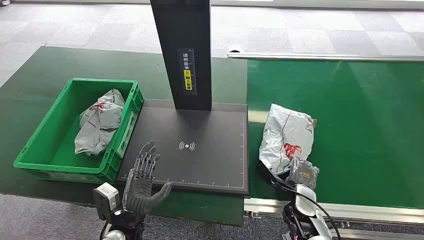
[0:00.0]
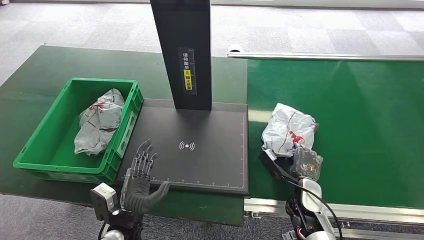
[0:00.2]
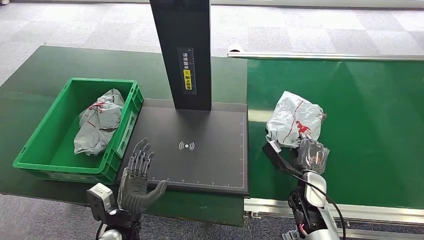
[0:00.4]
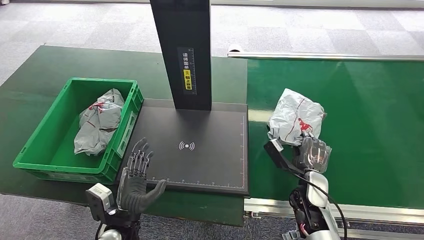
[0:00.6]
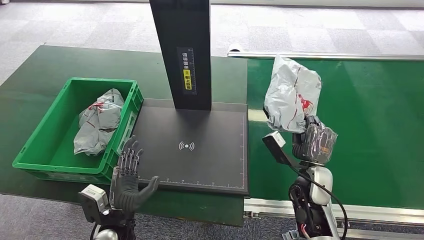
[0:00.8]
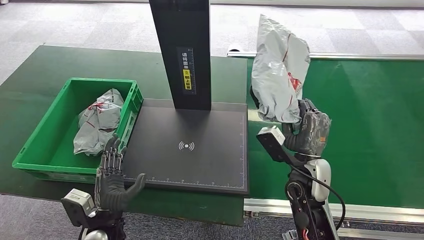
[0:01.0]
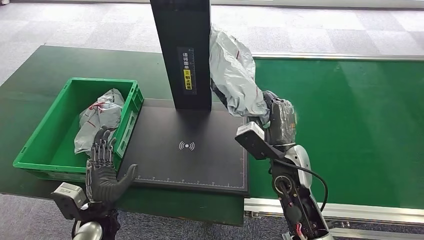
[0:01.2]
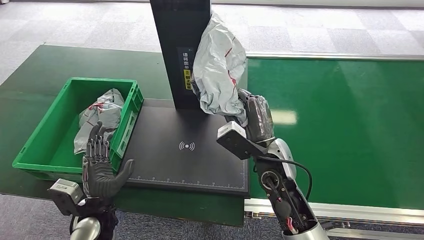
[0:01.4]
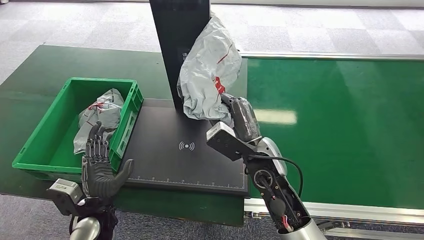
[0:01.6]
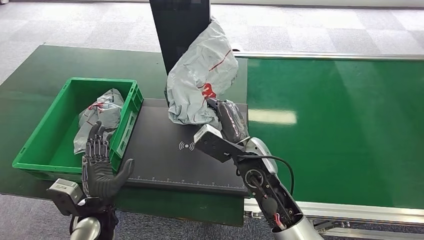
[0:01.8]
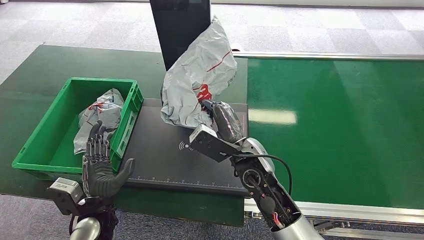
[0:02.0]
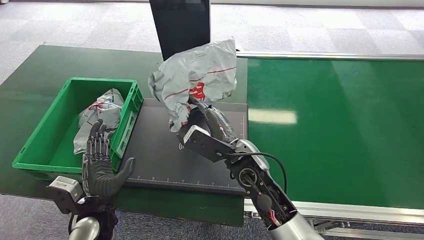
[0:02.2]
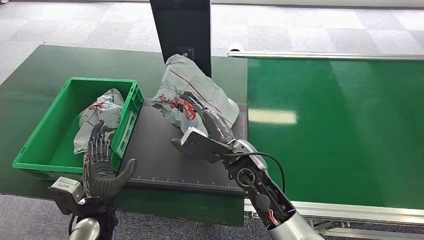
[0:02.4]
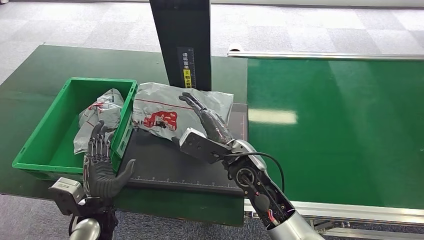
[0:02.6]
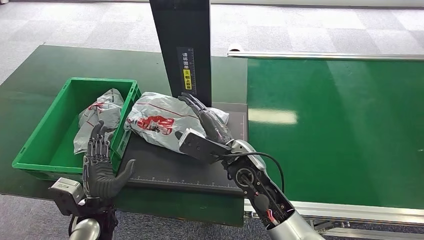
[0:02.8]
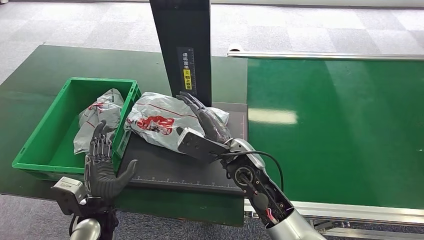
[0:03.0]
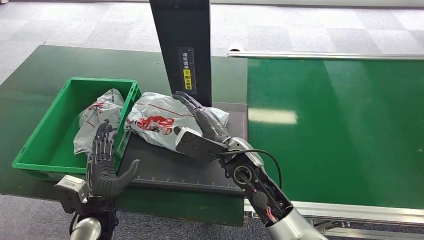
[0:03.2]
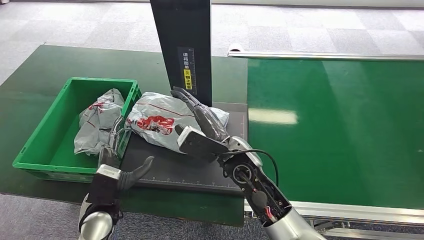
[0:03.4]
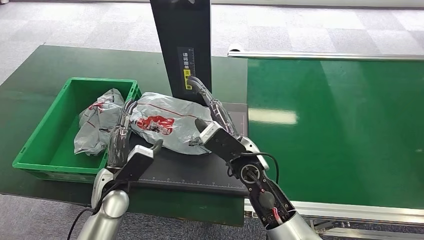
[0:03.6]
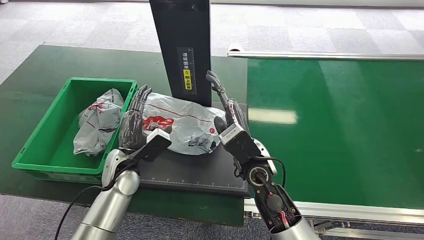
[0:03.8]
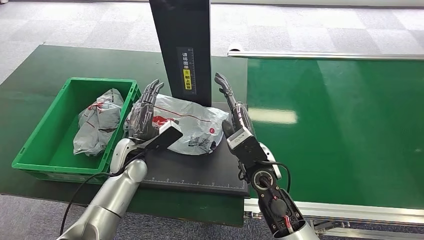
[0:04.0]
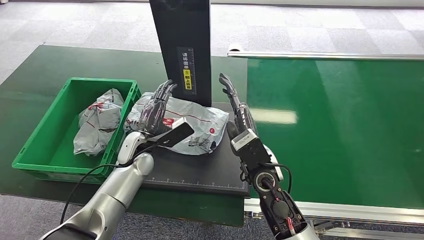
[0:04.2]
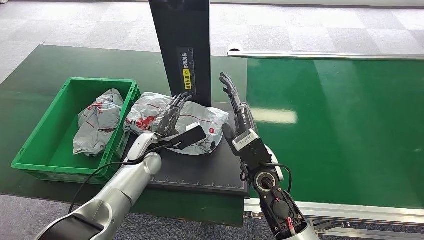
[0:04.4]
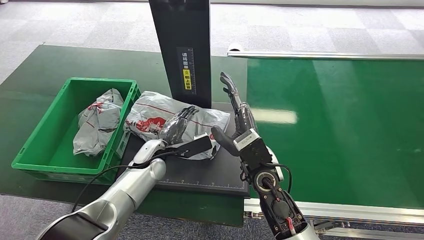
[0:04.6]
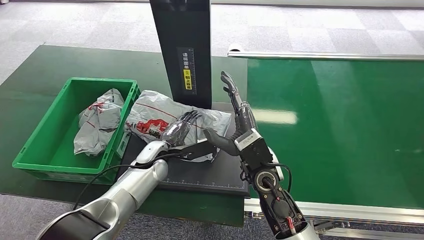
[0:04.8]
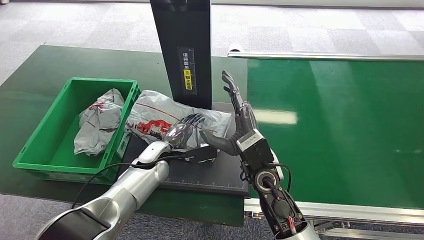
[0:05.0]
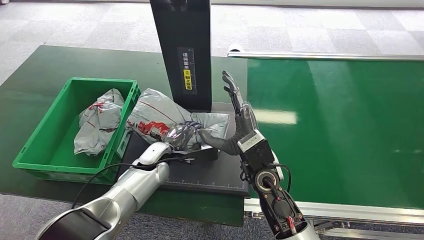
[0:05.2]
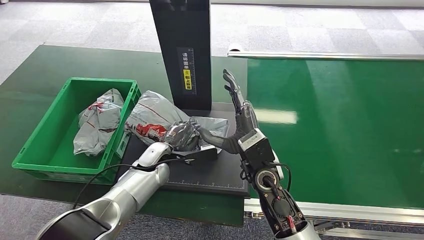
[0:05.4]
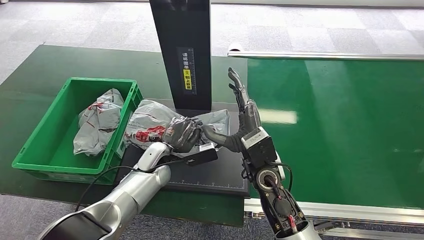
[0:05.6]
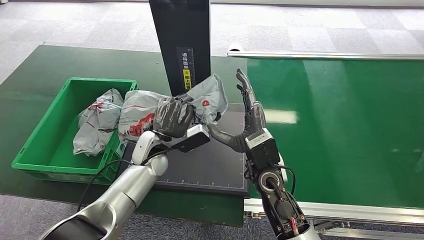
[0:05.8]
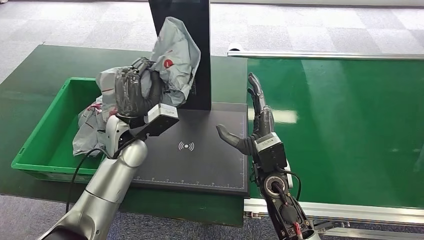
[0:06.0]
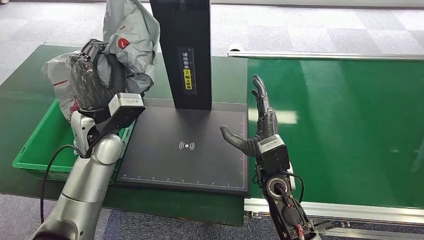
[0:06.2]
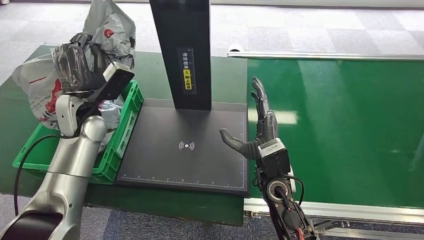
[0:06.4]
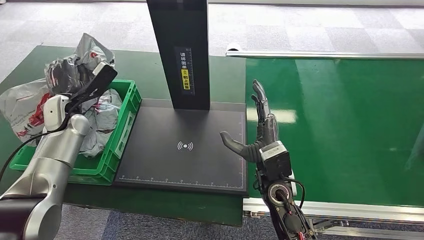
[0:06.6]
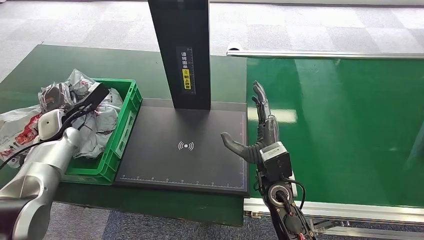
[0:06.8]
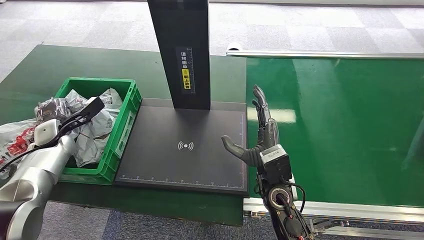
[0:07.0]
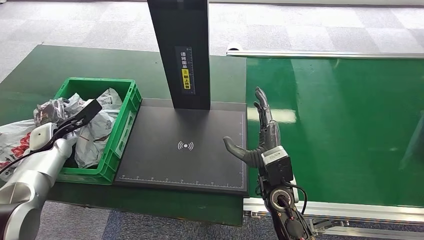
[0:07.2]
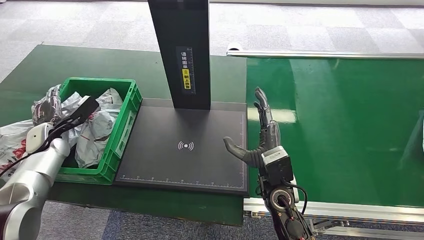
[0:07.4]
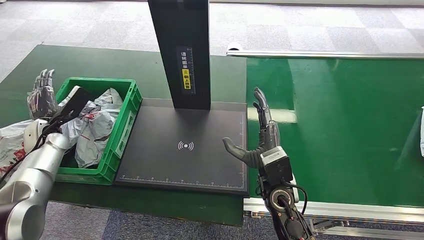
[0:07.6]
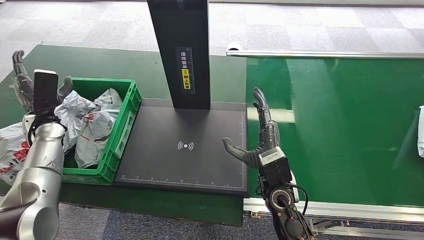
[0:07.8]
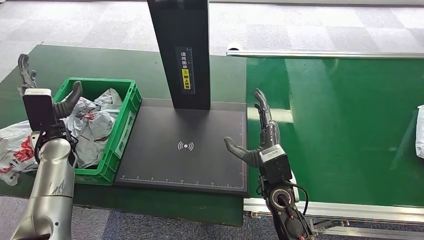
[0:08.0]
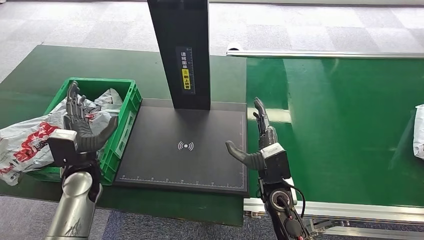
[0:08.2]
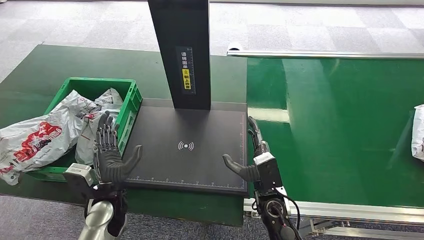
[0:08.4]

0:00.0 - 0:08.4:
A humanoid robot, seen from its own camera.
Step, 0:00.0 - 0:01.0: Pick up the package from the conveyor belt.
Step, 0:01.2 - 0:03.8: Place the package onto the inbound machine.
Step, 0:04.0 - 0:06.2: Pick up the package from the inbound machine.
Step, 0:06.4 - 0:08.4: Place the package into the parcel locker.
0:01.4 - 0:02.8: The right hand moves to the left, roughly 5 cm.
0:02.8 - 0:04.2: The left hand goes some 15 cm forward.
0:07.0 - 0:08.4: The left hand is displaced to the right and backward by roughly 25 cm. Meanwhile the right hand moves downward, approximately 10 cm.

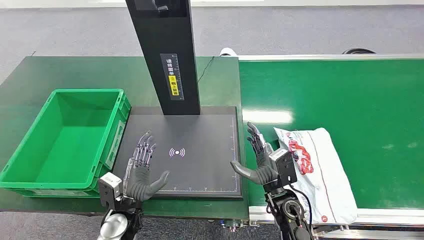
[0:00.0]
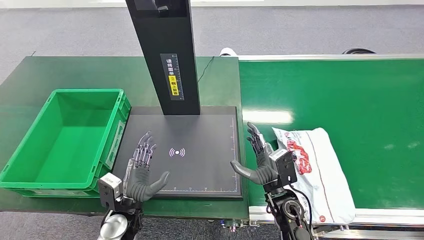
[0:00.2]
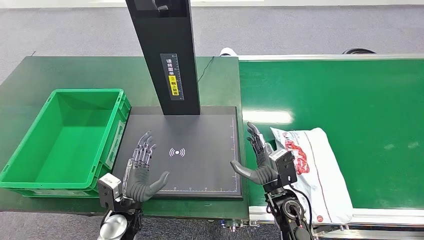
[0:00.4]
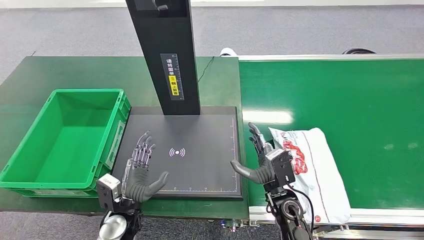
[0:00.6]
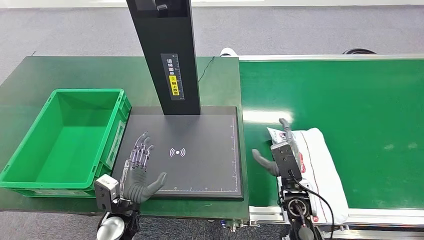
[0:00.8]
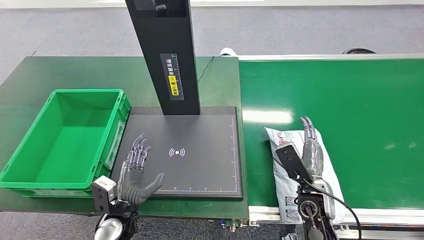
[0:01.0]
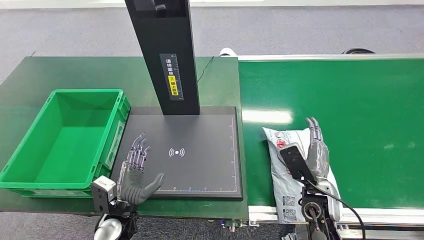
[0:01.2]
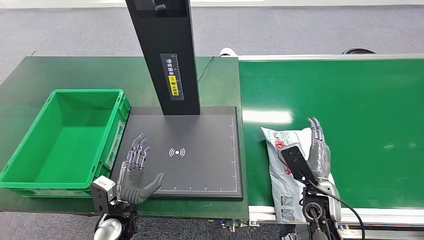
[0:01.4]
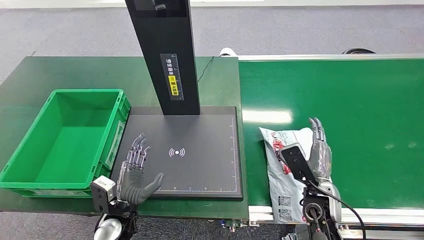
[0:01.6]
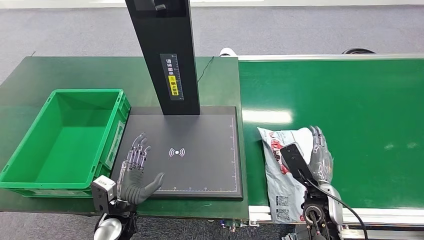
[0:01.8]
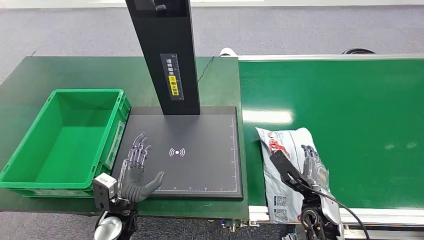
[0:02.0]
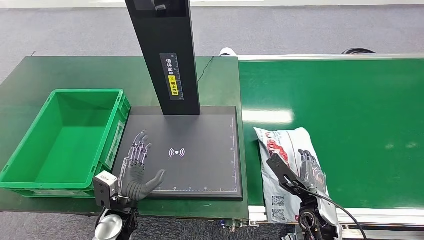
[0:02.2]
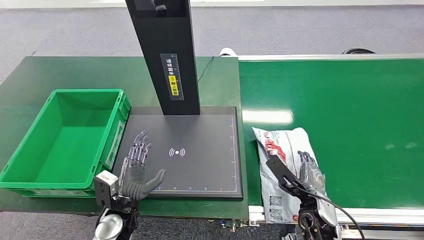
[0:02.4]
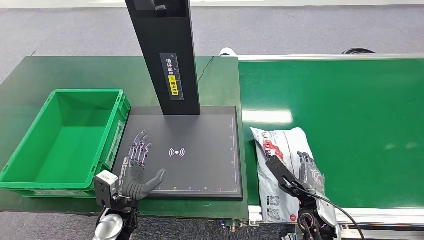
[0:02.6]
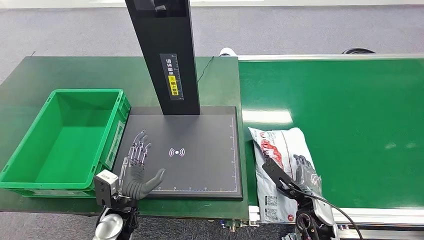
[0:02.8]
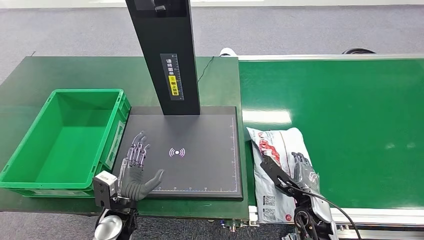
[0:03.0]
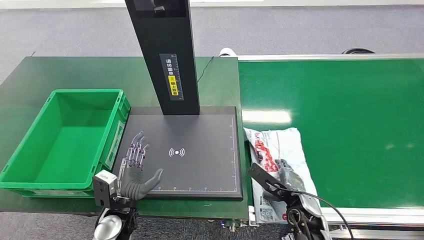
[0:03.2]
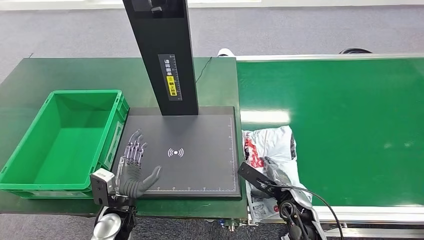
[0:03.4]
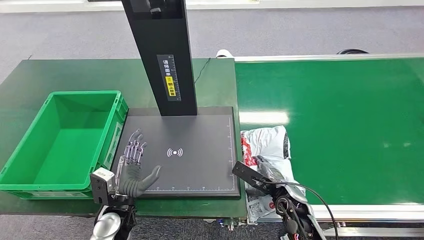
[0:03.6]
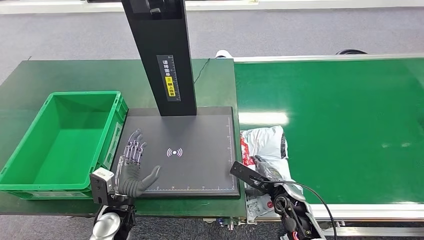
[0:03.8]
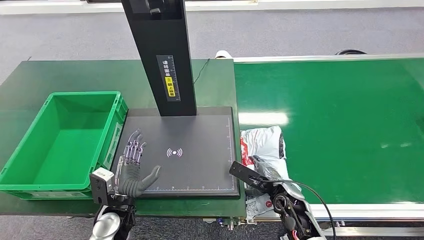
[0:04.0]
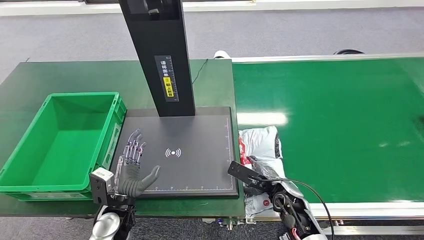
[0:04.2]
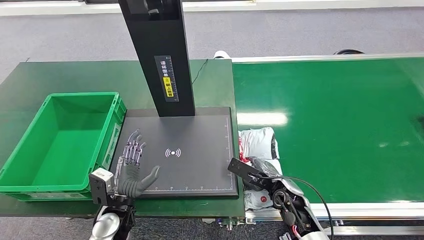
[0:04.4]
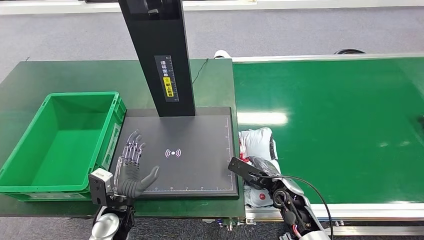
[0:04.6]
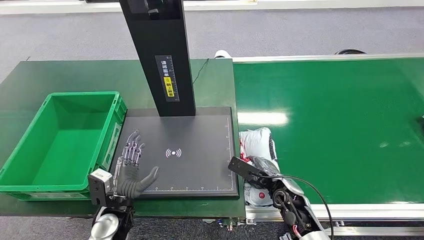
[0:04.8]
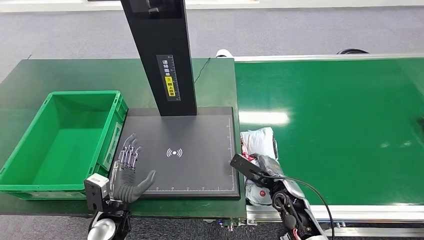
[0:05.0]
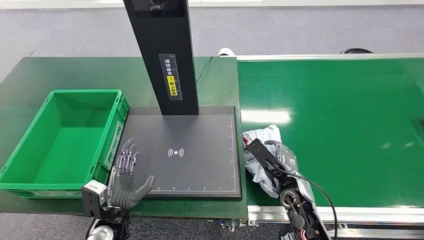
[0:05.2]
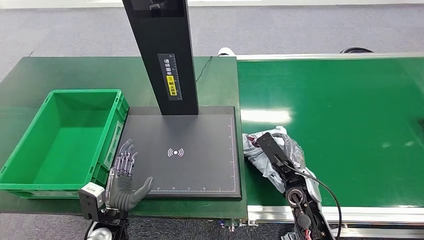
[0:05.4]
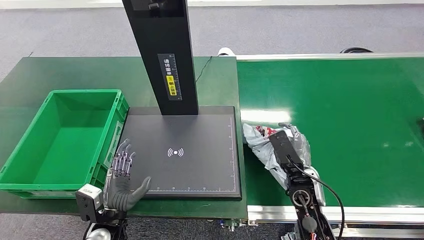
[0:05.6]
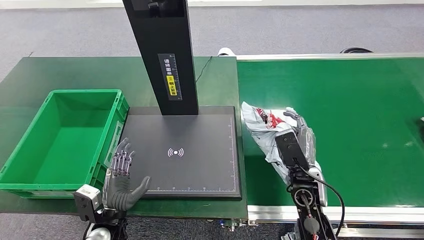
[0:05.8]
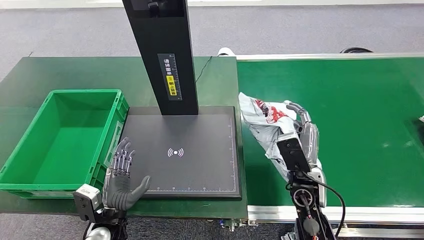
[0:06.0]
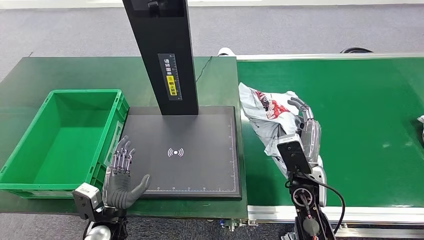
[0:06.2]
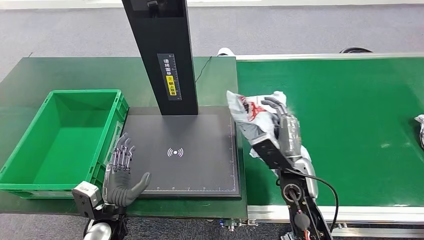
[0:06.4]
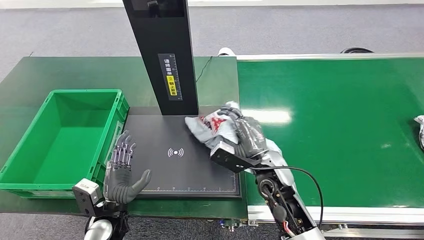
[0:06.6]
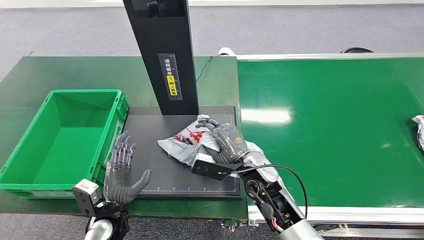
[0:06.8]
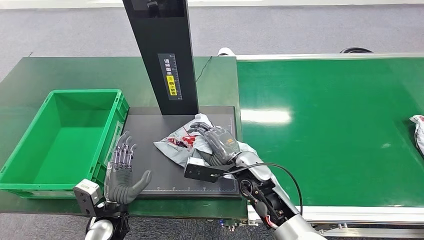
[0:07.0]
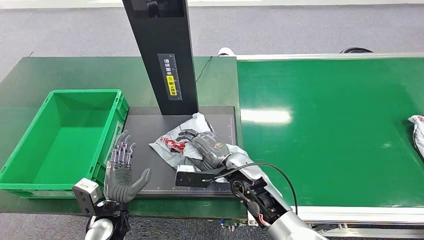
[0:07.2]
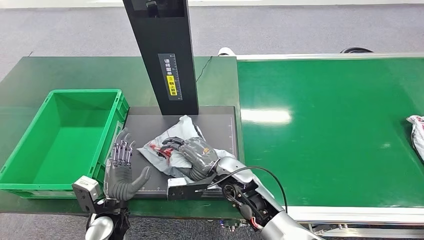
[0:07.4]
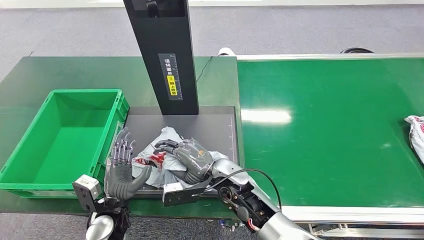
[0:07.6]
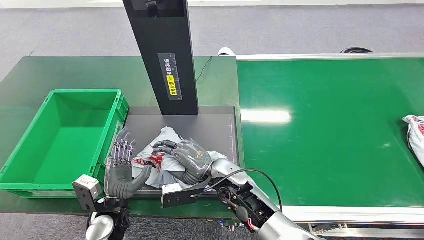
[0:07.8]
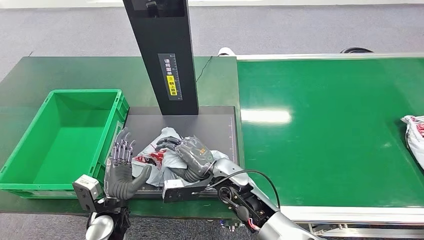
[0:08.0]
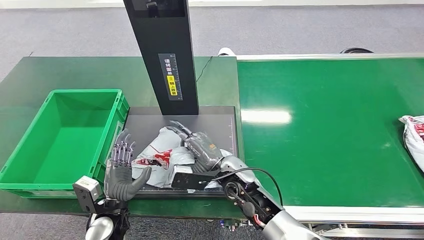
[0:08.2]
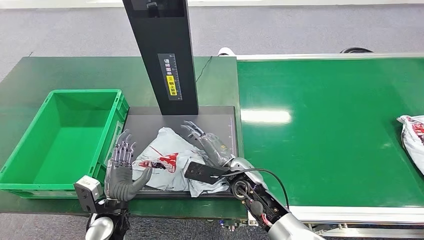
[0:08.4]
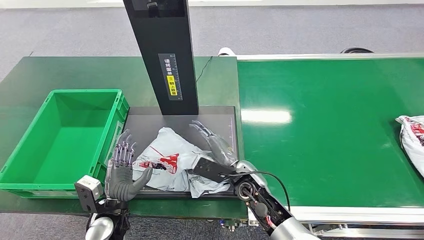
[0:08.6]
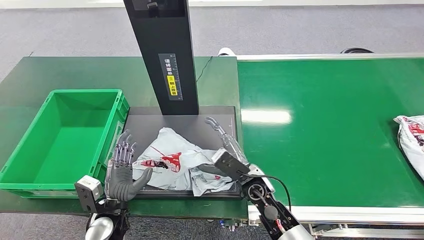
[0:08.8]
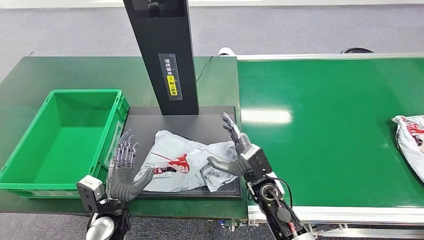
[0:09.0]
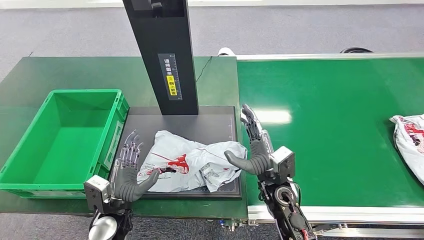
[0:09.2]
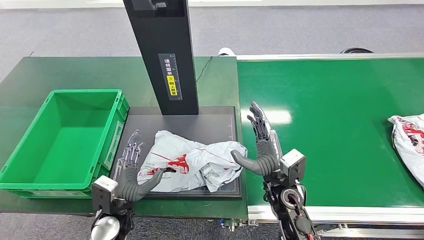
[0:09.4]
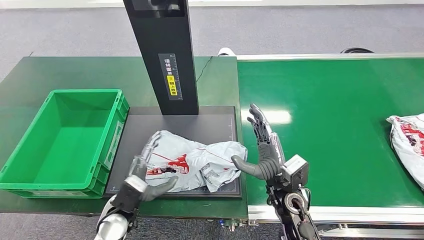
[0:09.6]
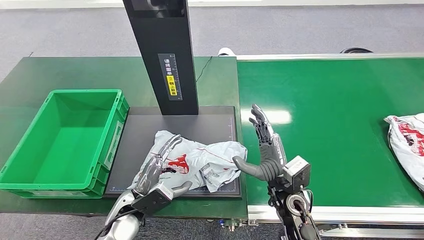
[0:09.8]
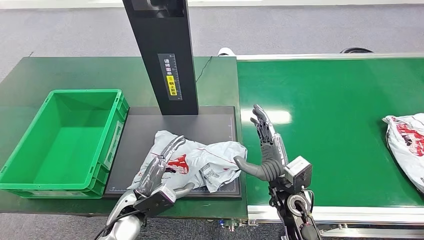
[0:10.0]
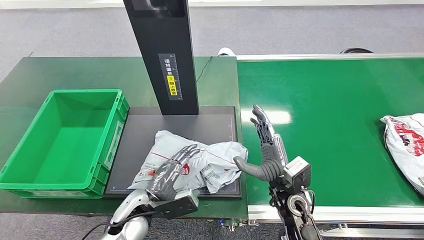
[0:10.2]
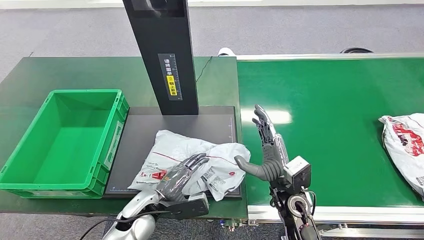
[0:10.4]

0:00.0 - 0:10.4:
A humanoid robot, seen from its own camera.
Step, 0:00.0 - 0:06.0: Pick up the package from the conveyor belt.
Step, 0:06.2 - 0:09.4: Place the package onto the inbound machine.
0:07.4 - 0:09.0: The right hand goes approximately 5 cm to the right.
0:09.0 - 0:10.4: The right hand shifts by roughly 5 cm; the left hand shifts roughly 5 cm to the right.
